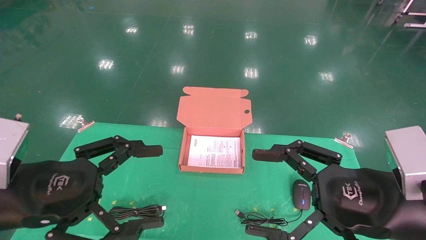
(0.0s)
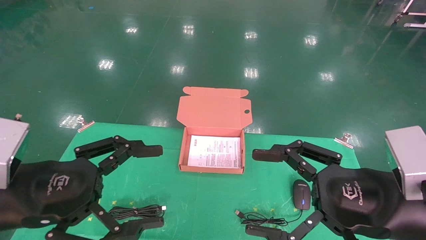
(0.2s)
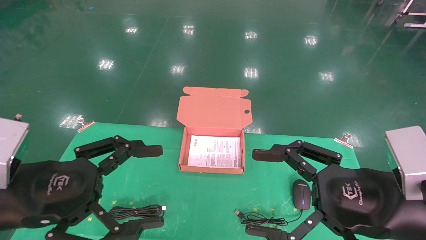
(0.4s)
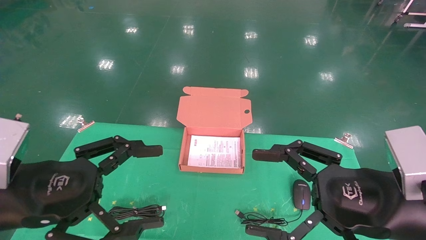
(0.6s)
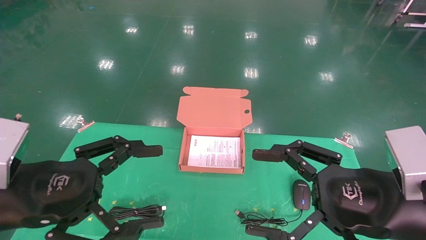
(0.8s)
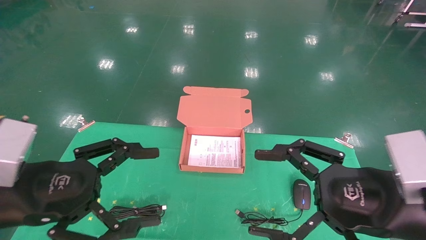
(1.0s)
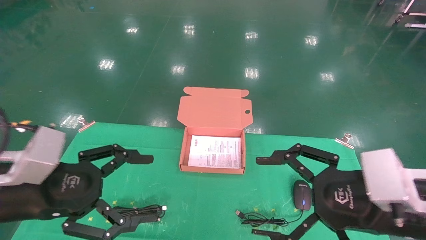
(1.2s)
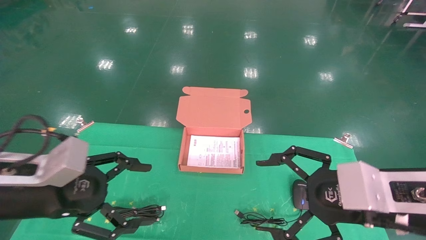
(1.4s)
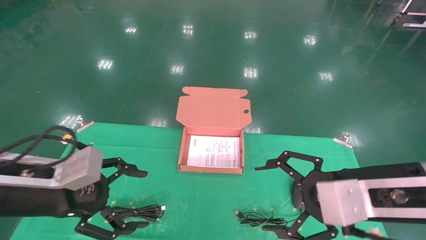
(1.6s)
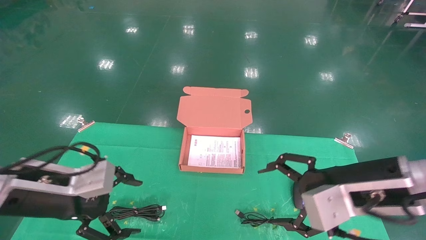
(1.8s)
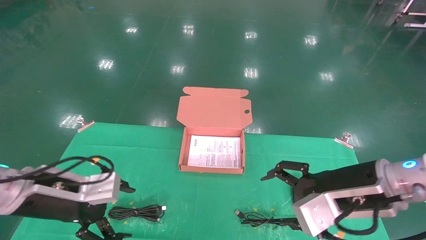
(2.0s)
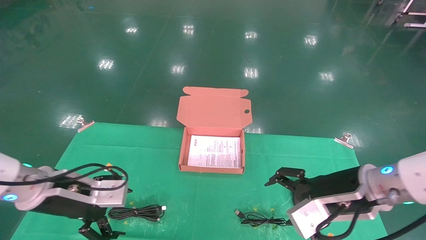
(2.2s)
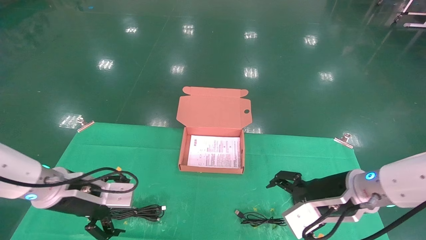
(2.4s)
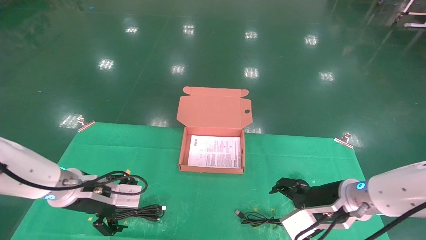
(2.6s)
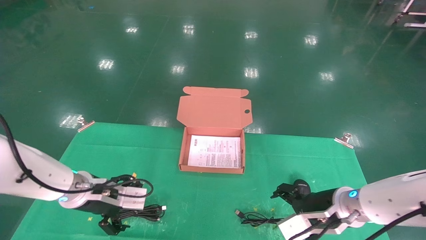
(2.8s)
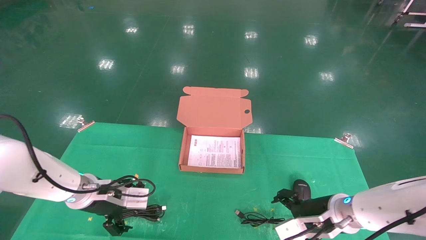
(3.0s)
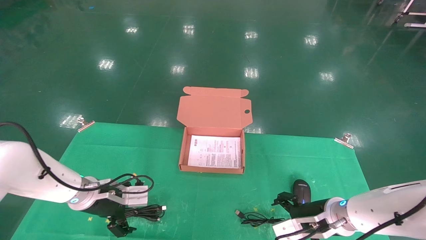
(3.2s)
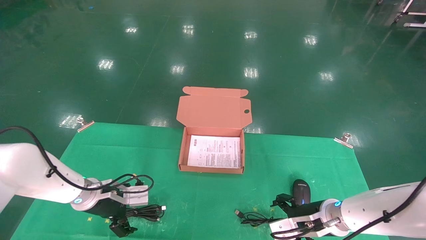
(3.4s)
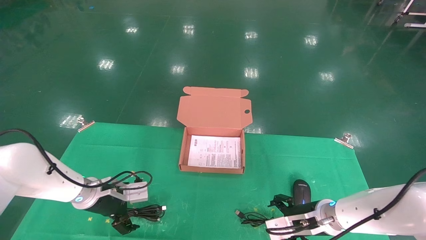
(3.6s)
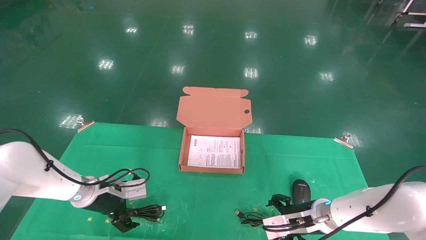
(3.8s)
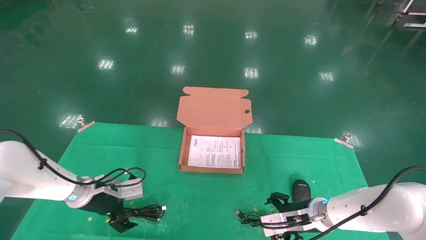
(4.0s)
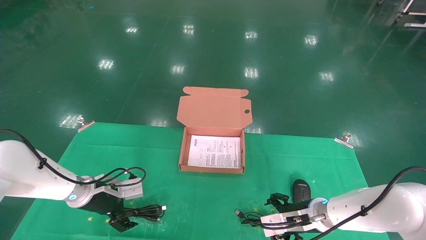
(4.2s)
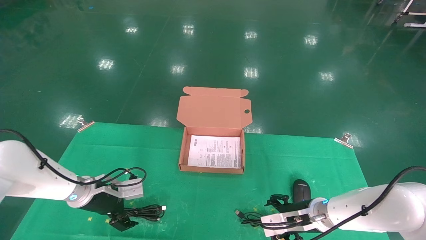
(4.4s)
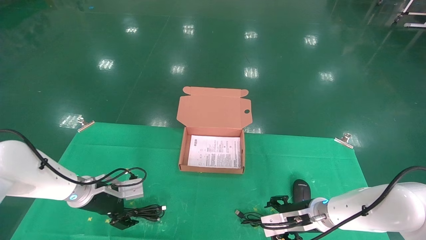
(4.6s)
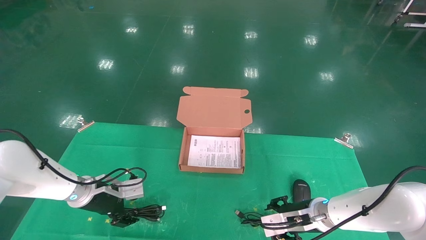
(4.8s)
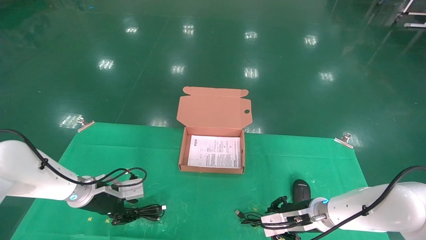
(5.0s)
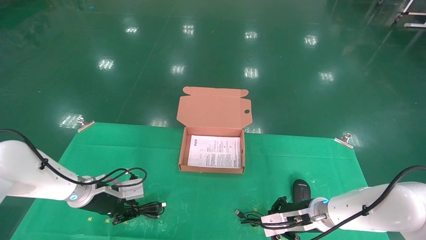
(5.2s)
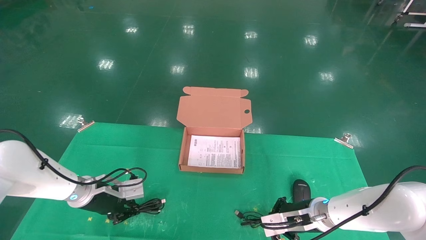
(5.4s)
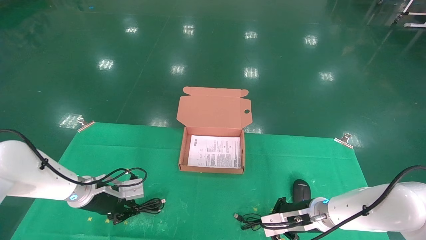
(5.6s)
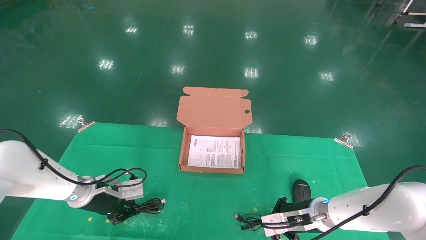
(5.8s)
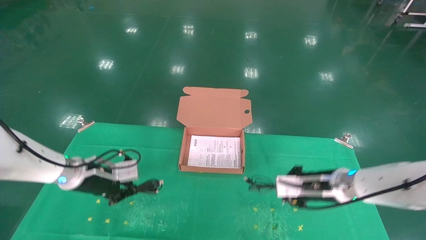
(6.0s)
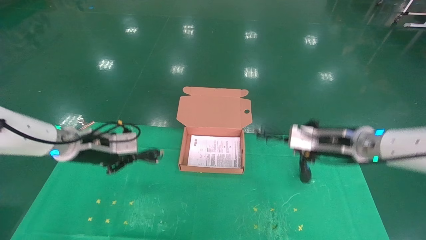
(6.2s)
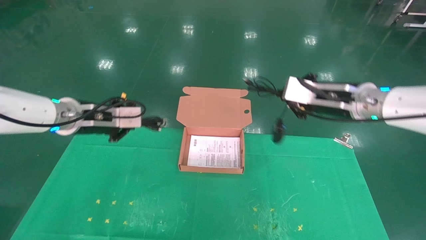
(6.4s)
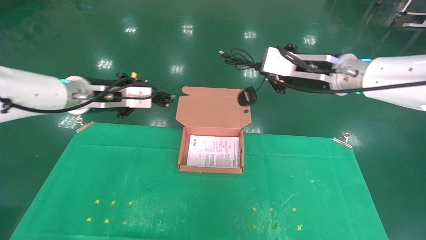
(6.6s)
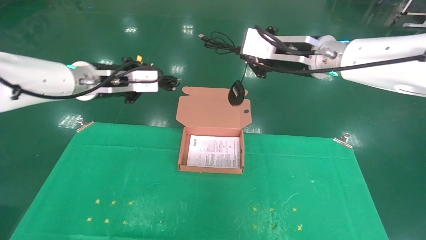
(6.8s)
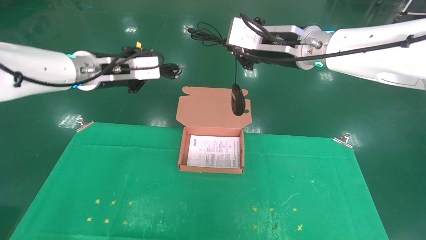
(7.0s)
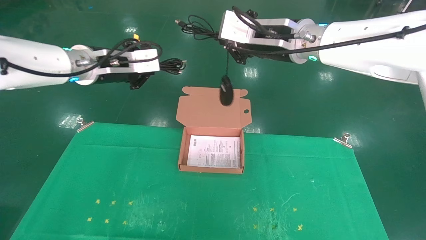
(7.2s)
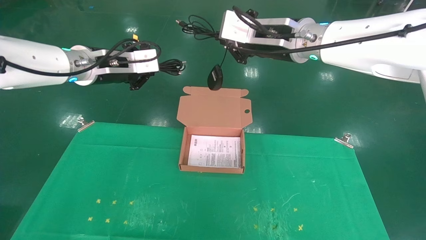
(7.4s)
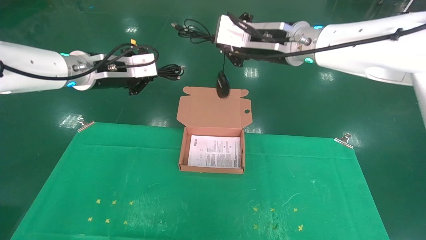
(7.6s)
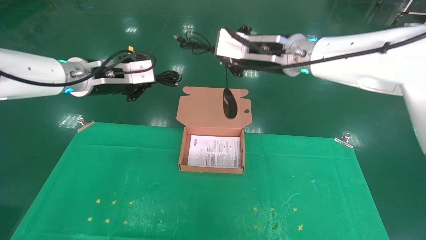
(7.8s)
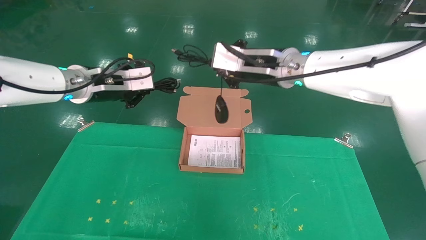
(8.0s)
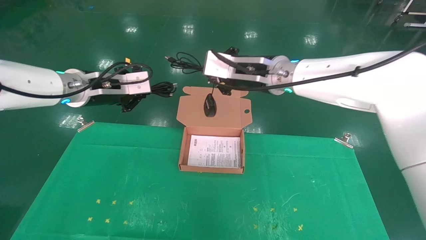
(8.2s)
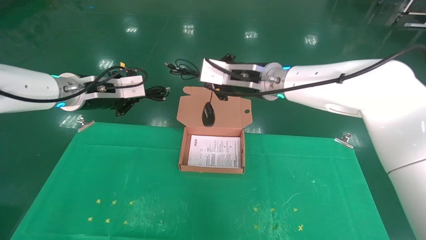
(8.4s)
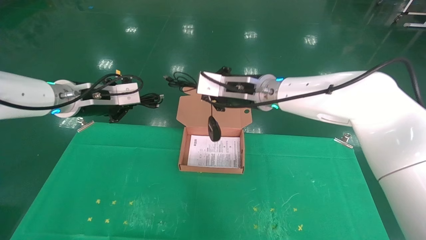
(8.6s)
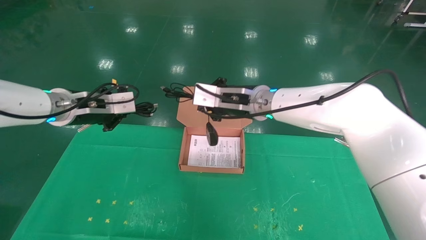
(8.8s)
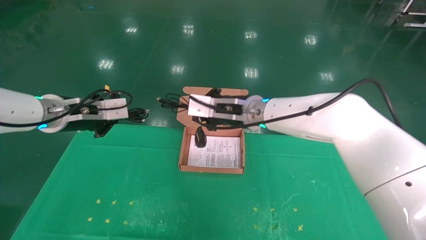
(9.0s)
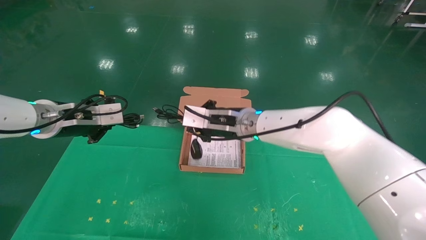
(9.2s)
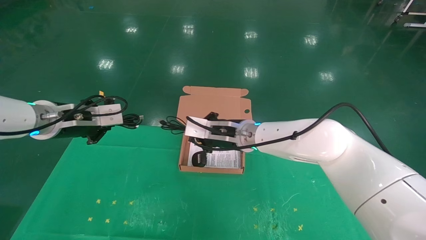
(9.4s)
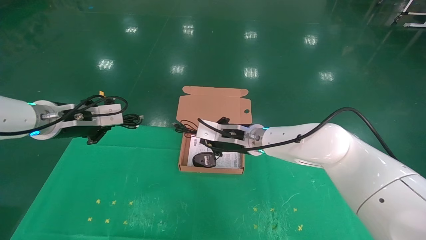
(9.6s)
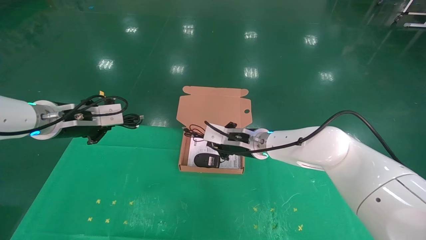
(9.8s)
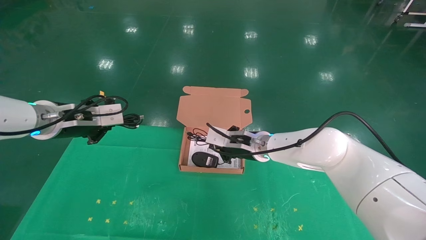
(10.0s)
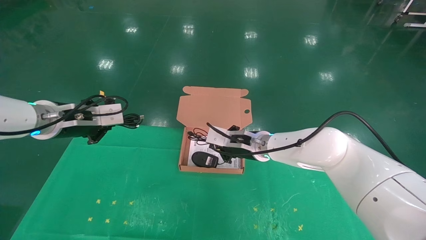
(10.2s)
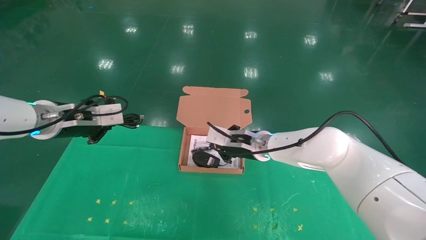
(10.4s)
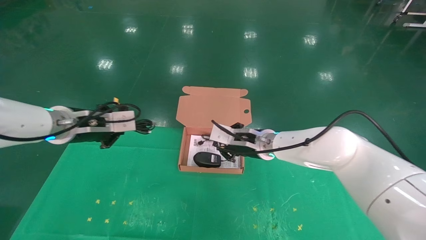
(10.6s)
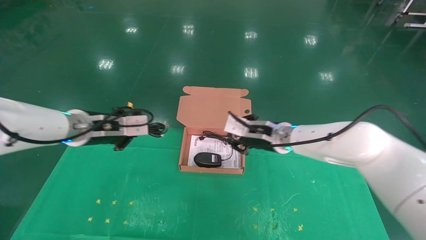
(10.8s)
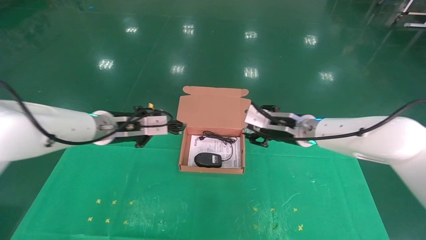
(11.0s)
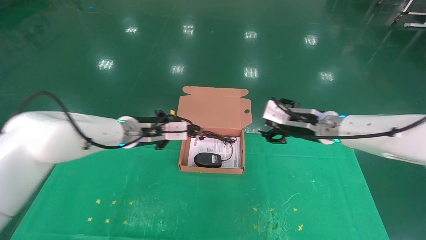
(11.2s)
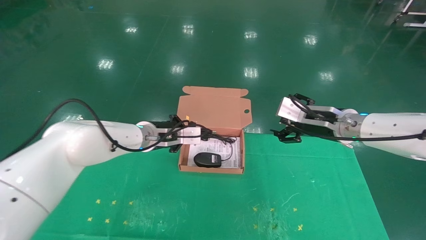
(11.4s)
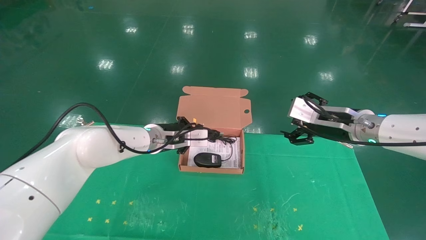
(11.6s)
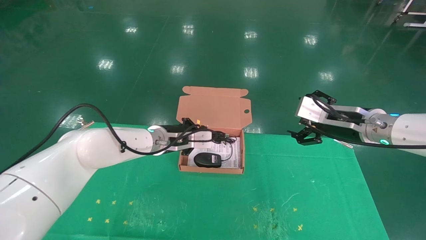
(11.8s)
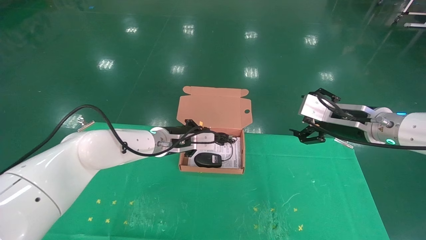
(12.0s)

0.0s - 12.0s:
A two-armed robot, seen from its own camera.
Task of the whole recording: grasp data cable left put into box grasp mouse right put into box.
Step, 1.2s - 7.0s: Grab and pick up both the mouse and power cord from the accessory packaging area at the same time.
0.0s - 1.6s: The left gripper is displaced forward by about 5 cm.
1.6s - 3.0s: The left gripper heads forward and downward, covering approximately 20 cm. Meanwhile the right gripper is displaced downward and forward by roughly 20 cm.
3.0s - 4.4s: The right gripper ends up approximately 5 cm from where it was. The left gripper changes place by roughly 5 cm.
4.4s - 6.0s: Both grippers move upward, approximately 10 cm. The left gripper closes. The right gripper closes.
6.0s - 7.6s: The right gripper heads upward and to the left, covering about 25 cm; the left gripper is displaced upward by roughly 20 cm.
7.6s - 9.0s: The right gripper shifts approximately 15 cm downward and to the left. Meanwhile the left gripper travels downward and to the left by some 10 cm.
9.0s - 10.4s: The right gripper is displaced downward by approximately 10 cm.
10.4s - 12.0s: The left gripper goes approximately 20 cm to the right, forward and downward. Meanwhile the right gripper moves to the right, backward and upward, approximately 20 cm, and opens.

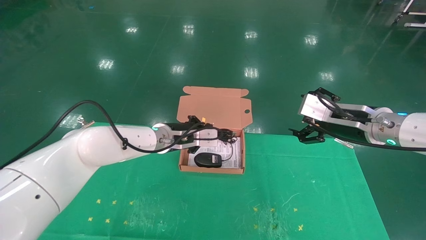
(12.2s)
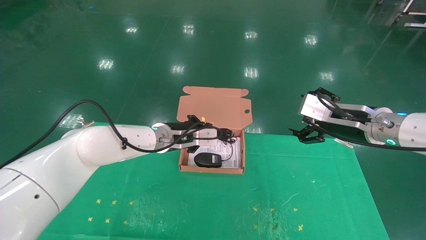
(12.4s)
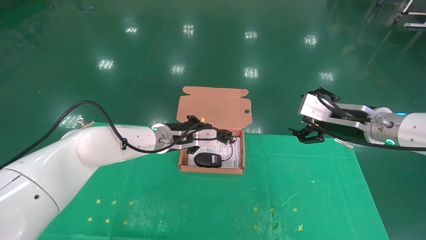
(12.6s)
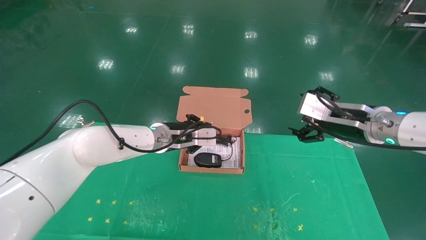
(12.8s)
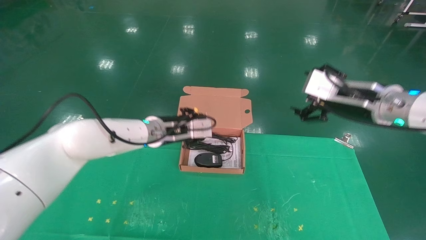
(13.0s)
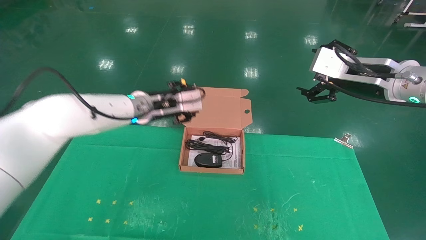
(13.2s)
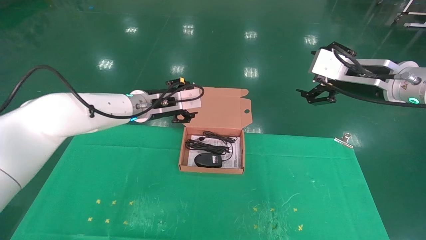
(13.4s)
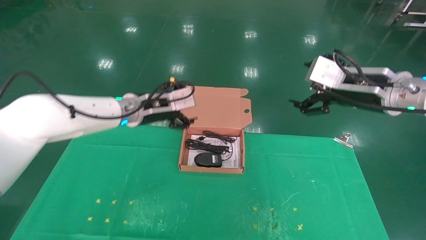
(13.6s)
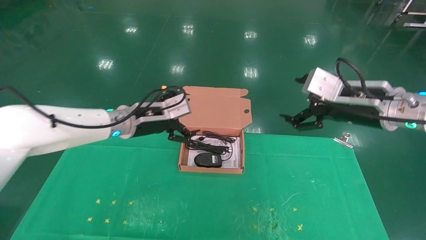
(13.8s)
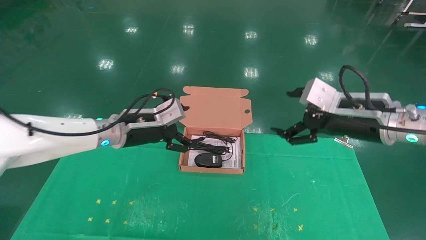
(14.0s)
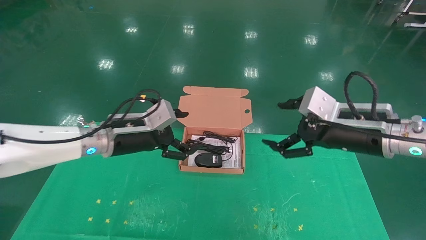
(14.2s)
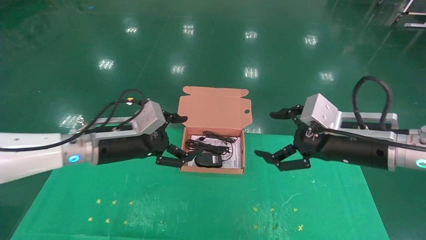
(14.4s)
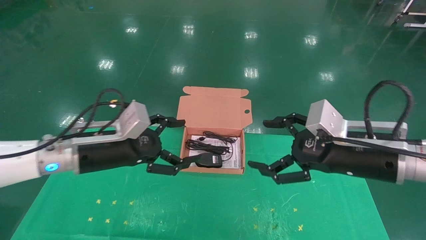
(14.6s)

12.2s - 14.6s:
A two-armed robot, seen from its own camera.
Task of the whole recording: grasp data cable left put into box grasp mouse right put into box.
12.2s - 13.4s: Both grippers travel together upward, about 5 cm. The left gripper opens its fingers.
13.4s - 14.6s: The right gripper shifts about 10 cm downward and backward; the left gripper travels backward and to the left by some 15 cm, and opens its fingers.

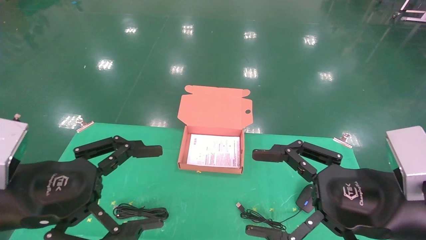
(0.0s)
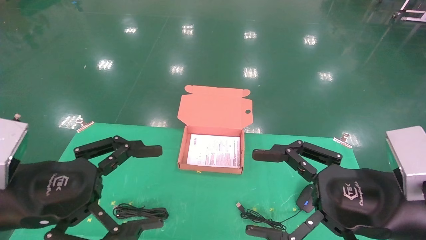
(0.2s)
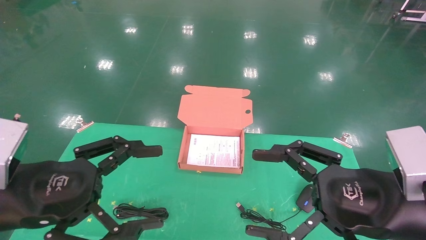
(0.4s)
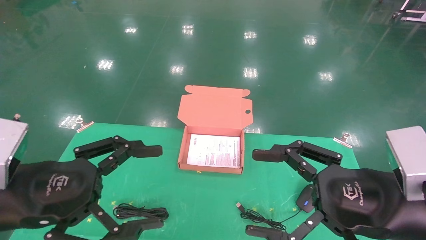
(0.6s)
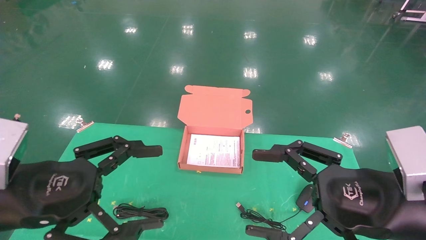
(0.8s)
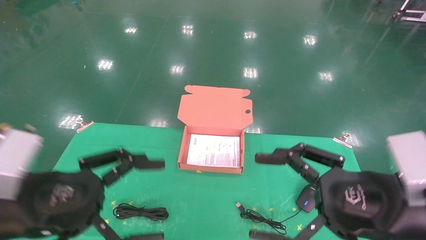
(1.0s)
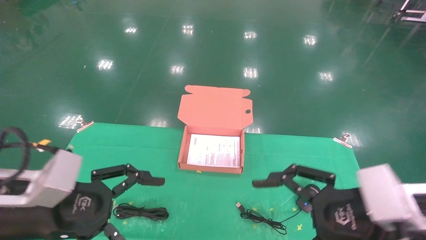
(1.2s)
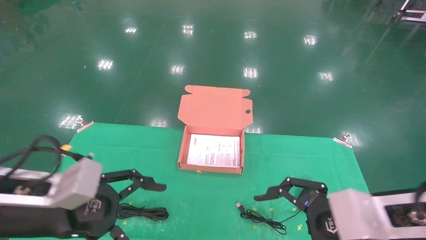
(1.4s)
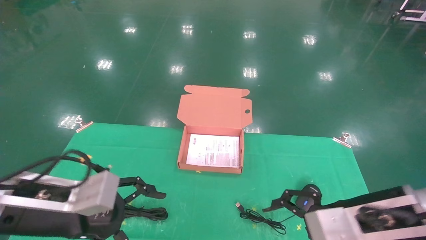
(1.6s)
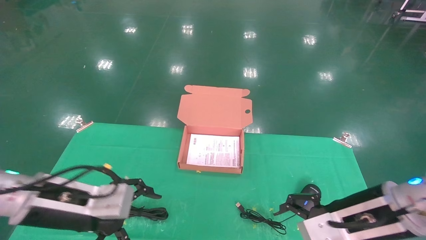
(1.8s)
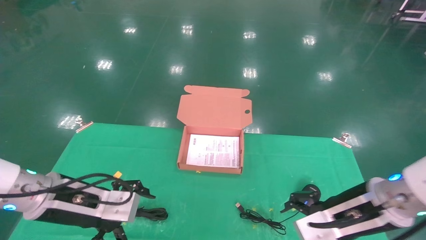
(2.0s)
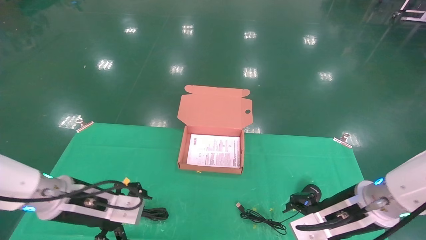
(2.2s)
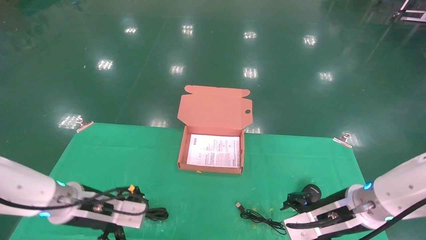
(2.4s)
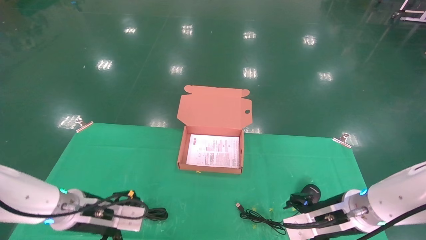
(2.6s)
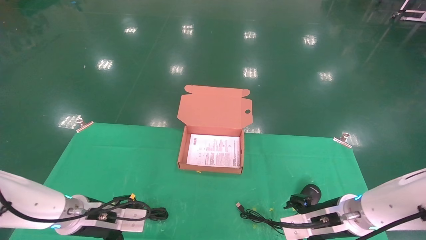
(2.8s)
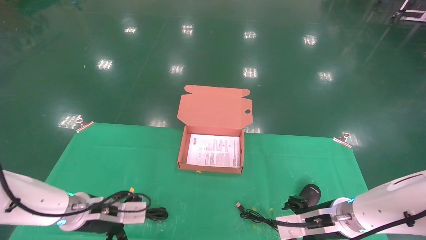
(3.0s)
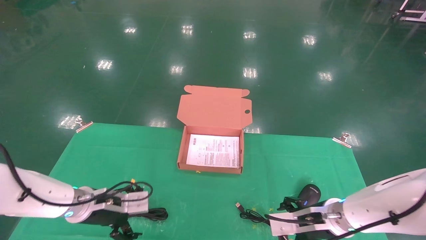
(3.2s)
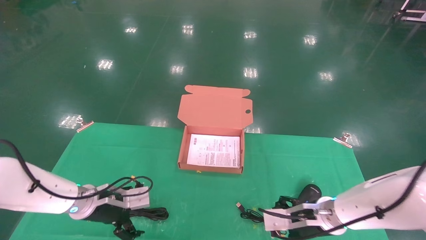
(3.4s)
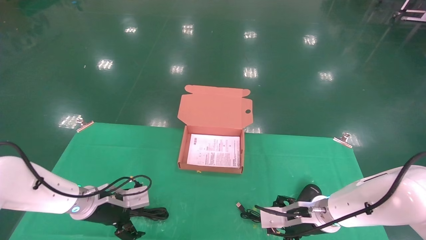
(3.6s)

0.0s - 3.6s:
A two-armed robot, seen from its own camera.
Task of the whole recording: grasp data cable left put into box grasp mouse right put into box.
0.0s - 1.8s: The left gripper heads forward and downward, covering some 10 cm. The right gripper is displaced forward by approximately 10 cm.
1.8s - 3.6s: The right gripper travels downward and forward by approximately 15 cm; the left gripper moves forward and downward, approximately 15 cm.
